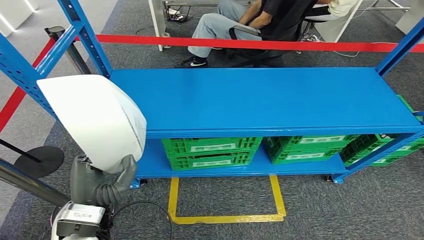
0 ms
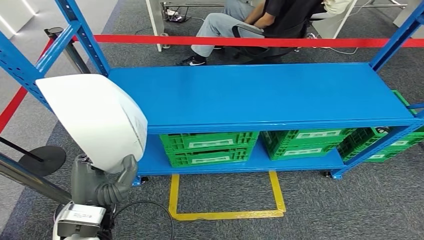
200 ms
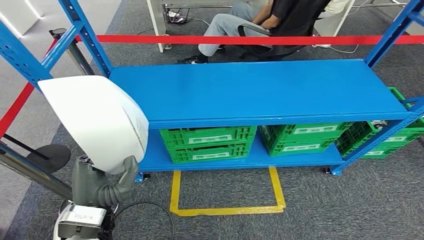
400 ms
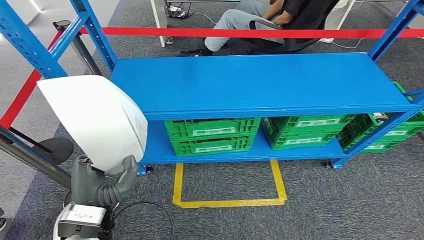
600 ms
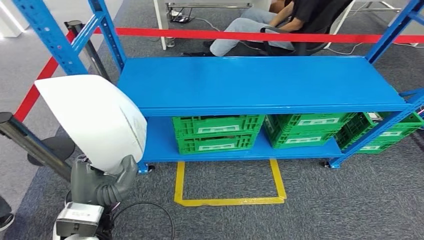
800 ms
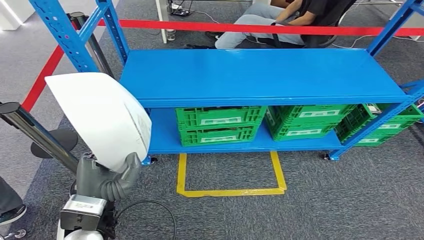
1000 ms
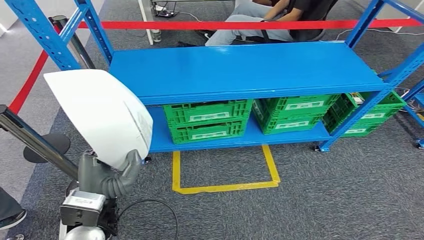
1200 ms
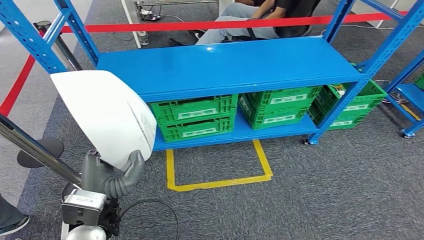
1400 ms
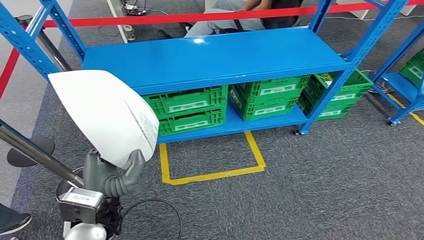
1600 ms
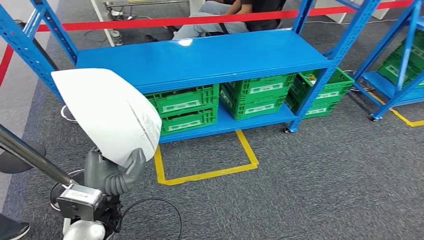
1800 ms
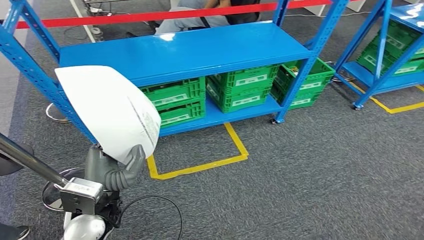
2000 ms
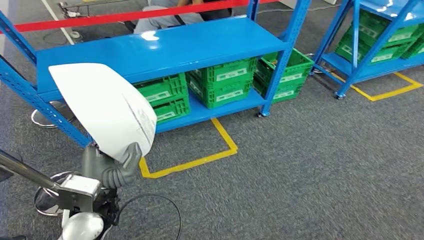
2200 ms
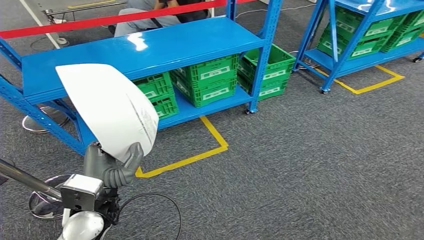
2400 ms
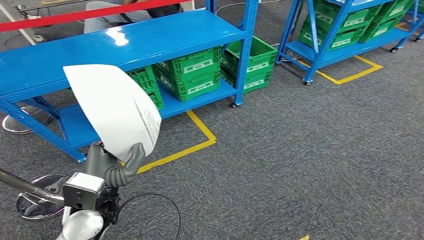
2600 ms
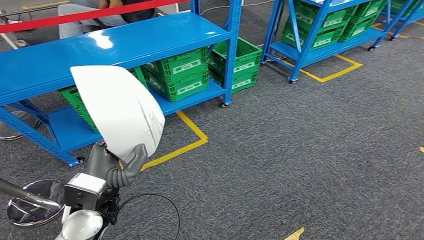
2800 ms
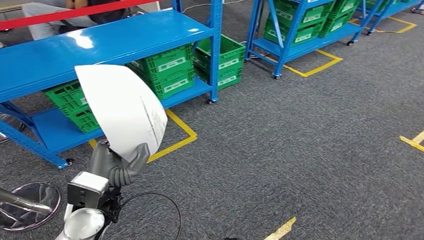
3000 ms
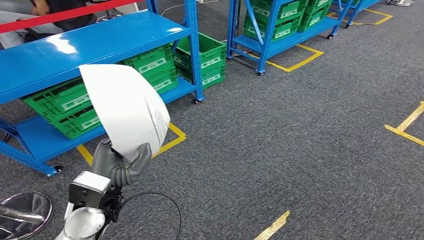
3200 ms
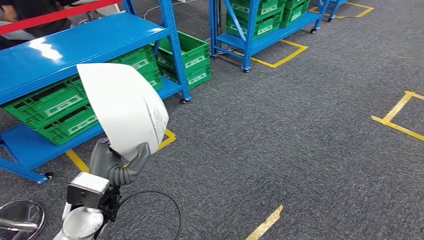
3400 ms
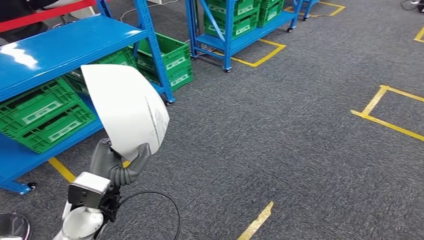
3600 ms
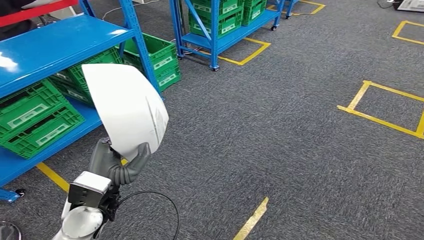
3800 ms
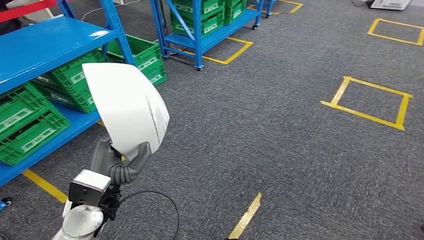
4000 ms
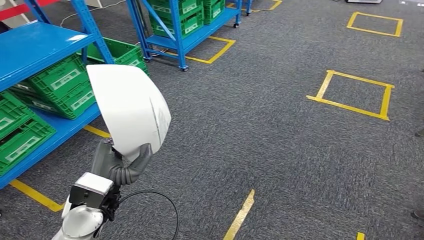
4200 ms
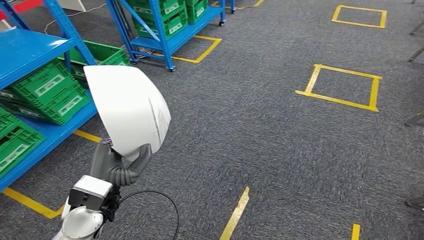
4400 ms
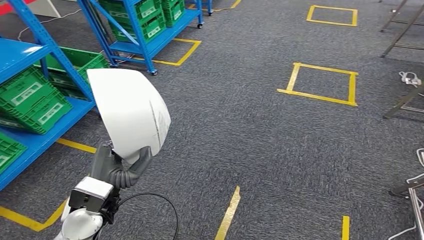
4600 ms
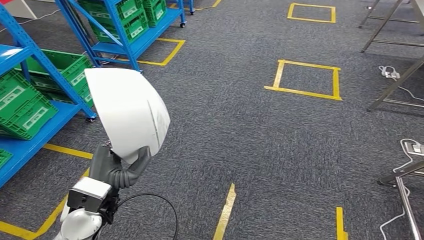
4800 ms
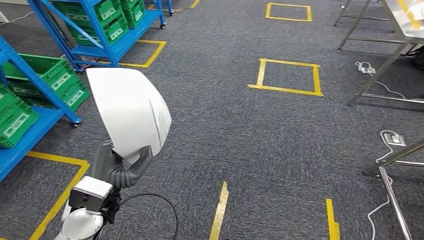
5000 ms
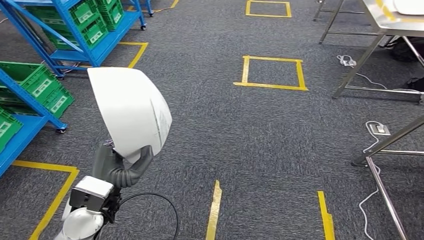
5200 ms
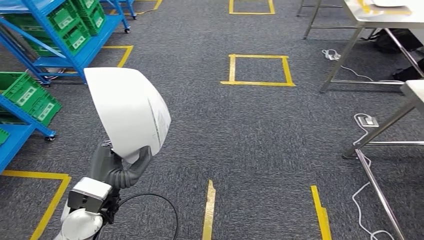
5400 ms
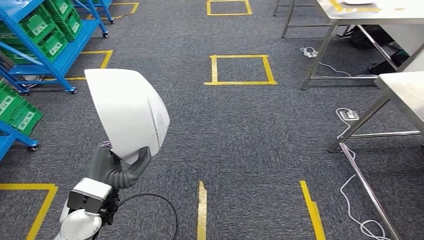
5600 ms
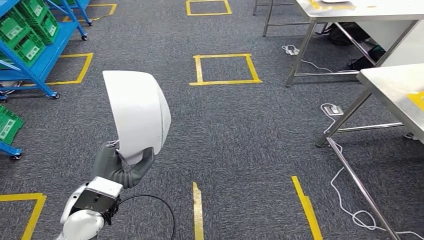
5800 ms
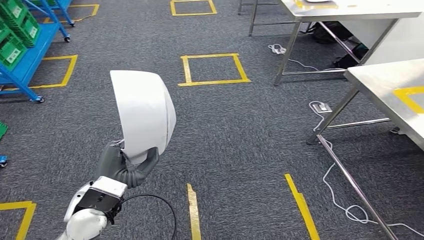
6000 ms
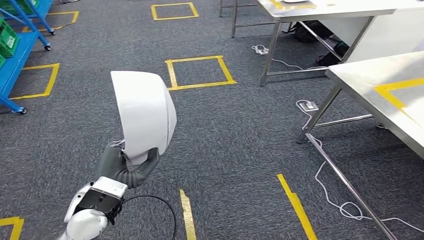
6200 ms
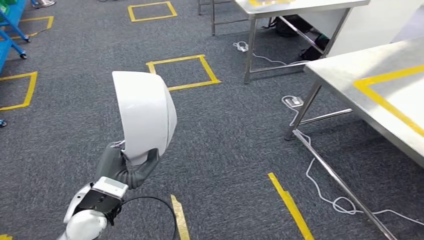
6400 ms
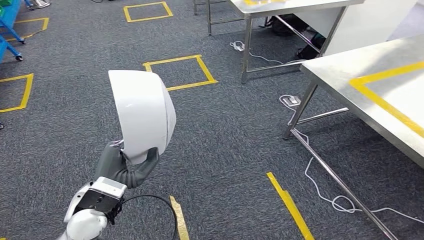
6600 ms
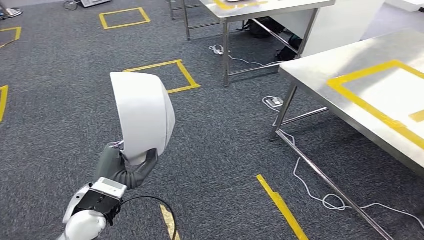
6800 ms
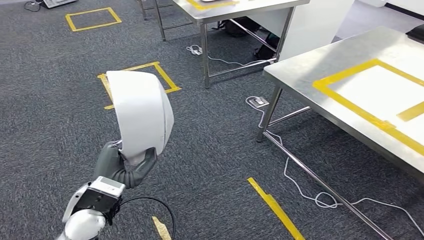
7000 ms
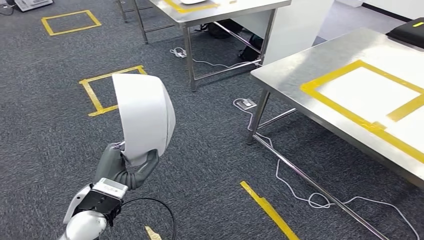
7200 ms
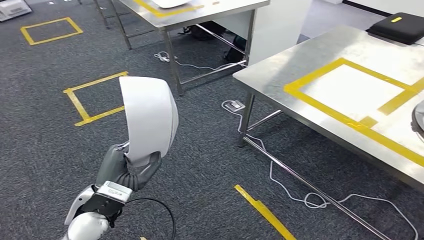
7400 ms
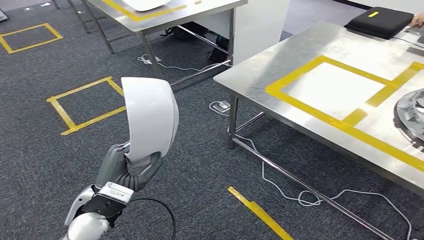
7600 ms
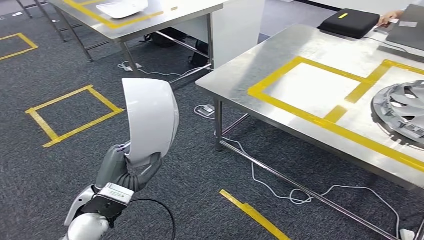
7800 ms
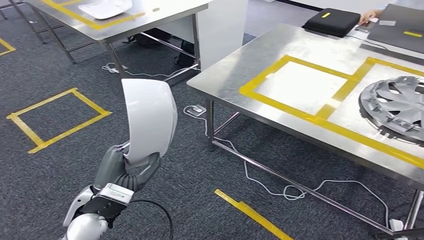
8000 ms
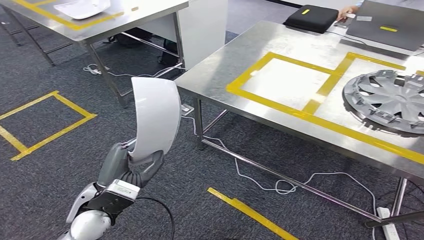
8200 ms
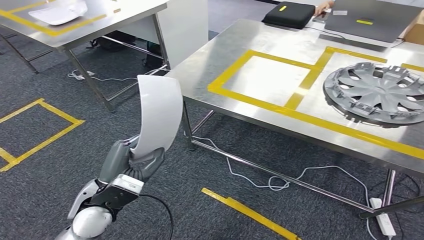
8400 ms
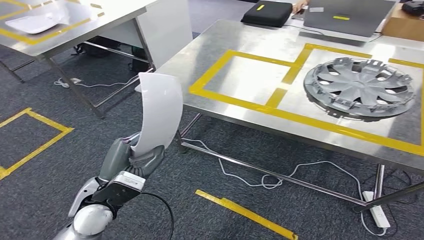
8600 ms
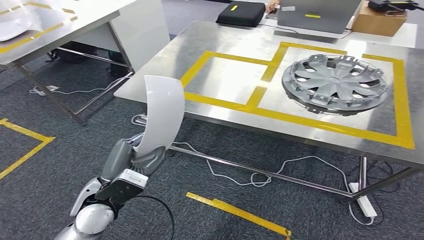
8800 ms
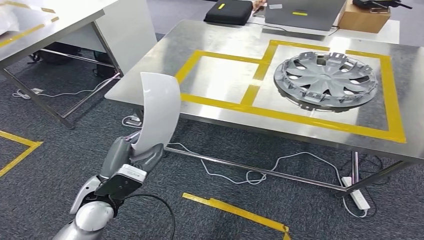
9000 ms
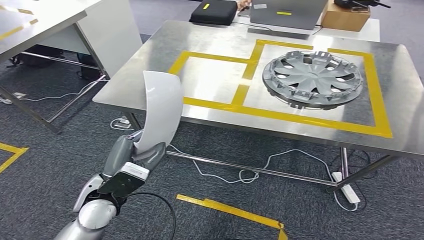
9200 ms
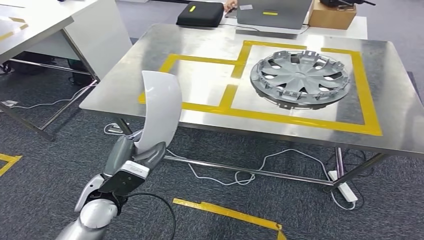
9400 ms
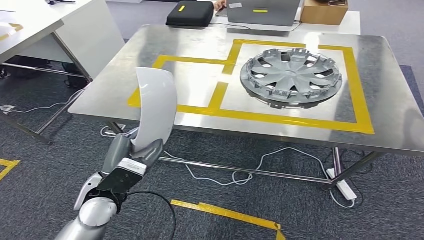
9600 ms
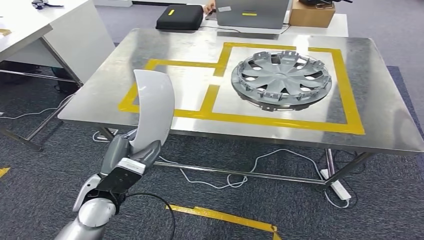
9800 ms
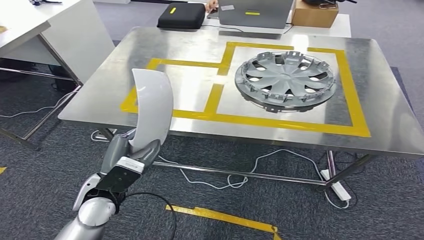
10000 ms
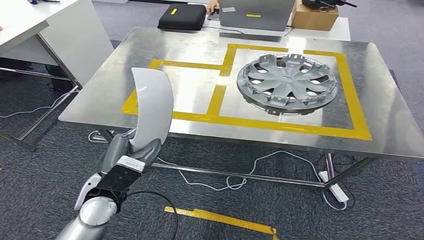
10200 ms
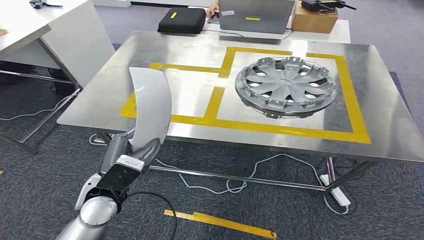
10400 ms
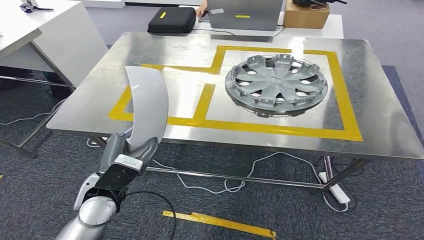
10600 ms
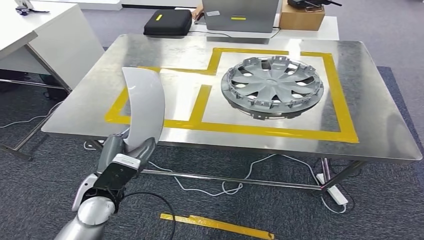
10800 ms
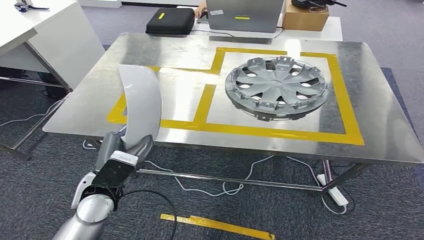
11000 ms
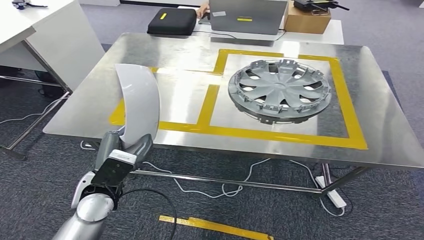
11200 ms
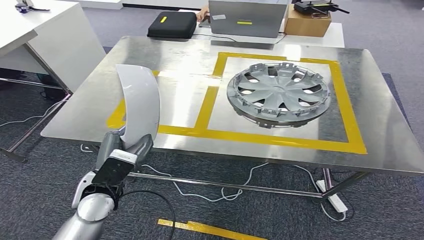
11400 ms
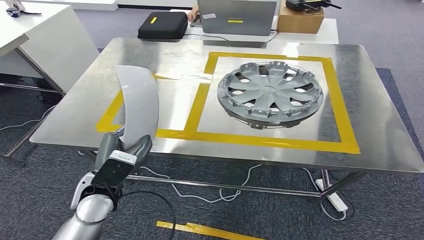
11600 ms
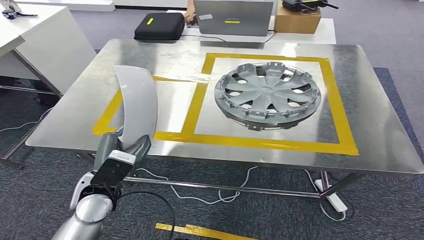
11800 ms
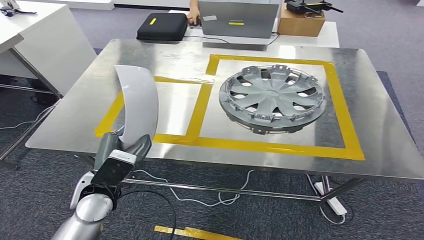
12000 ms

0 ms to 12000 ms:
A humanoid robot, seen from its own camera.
Step, 600 ms to 9600 ms: Move the small parts to the workbench.

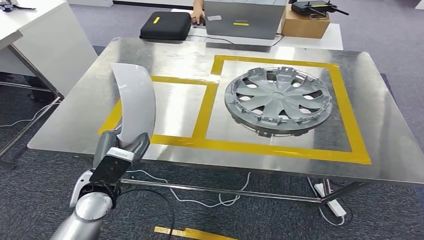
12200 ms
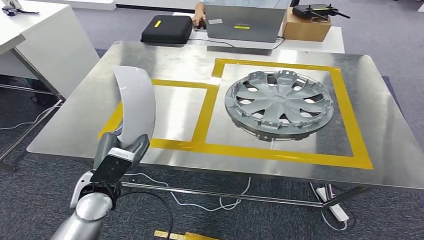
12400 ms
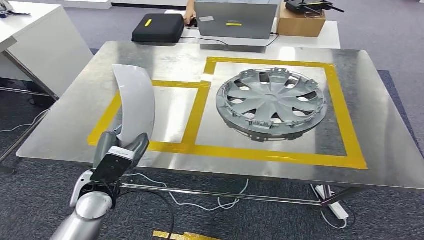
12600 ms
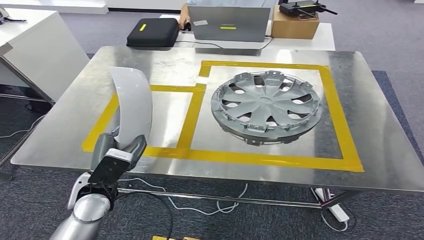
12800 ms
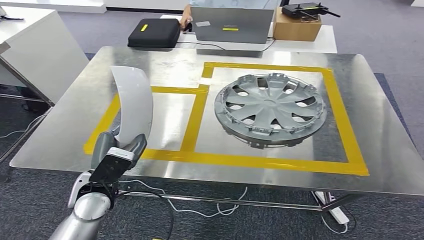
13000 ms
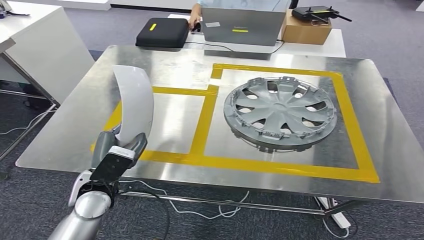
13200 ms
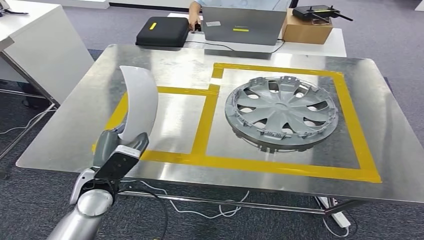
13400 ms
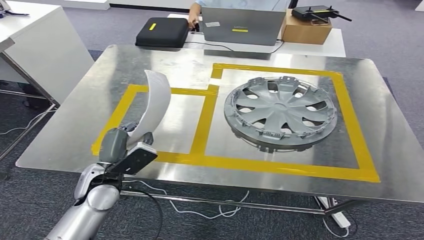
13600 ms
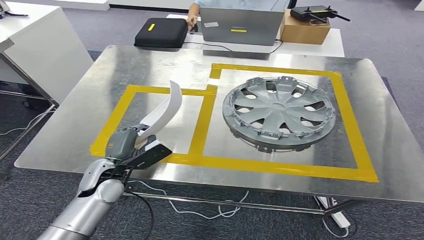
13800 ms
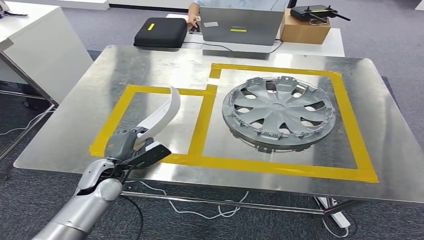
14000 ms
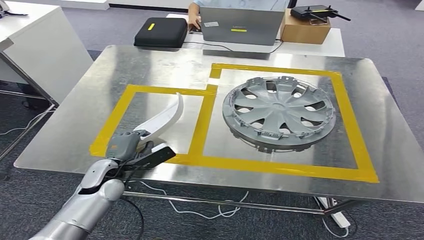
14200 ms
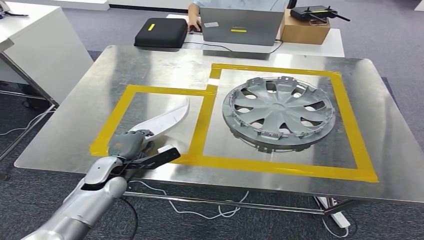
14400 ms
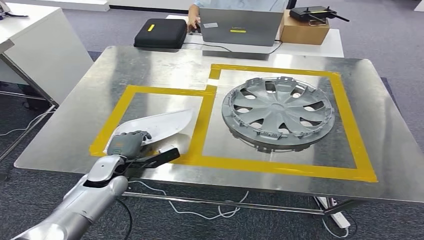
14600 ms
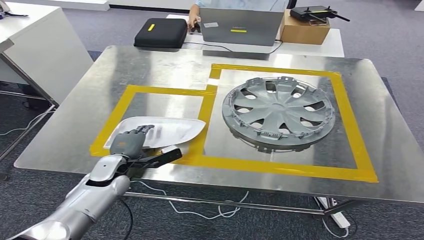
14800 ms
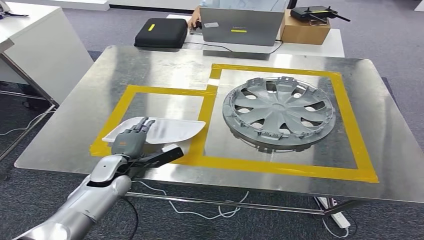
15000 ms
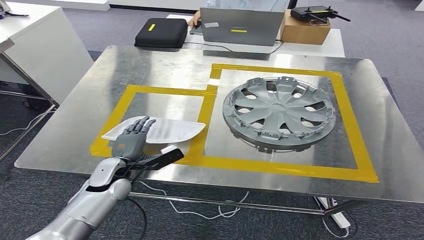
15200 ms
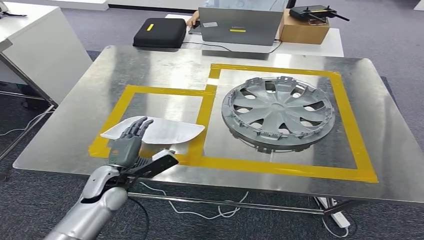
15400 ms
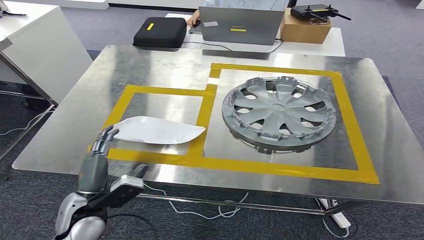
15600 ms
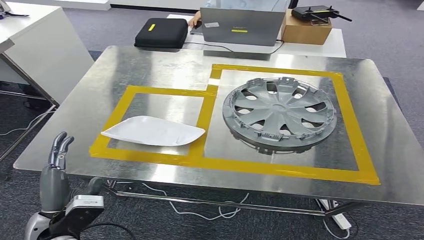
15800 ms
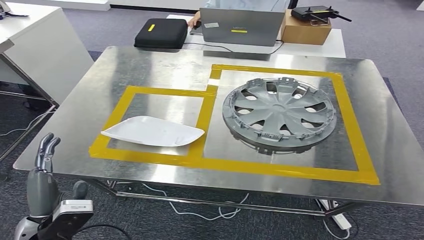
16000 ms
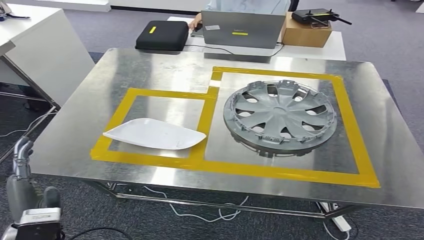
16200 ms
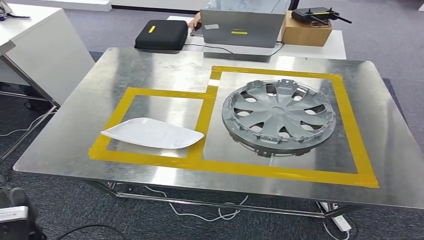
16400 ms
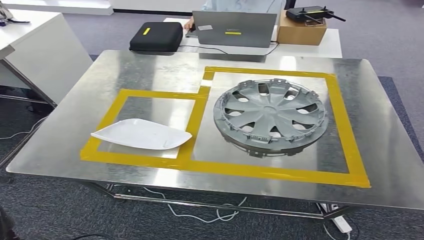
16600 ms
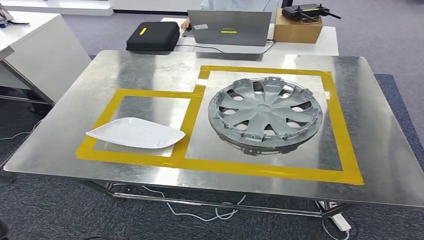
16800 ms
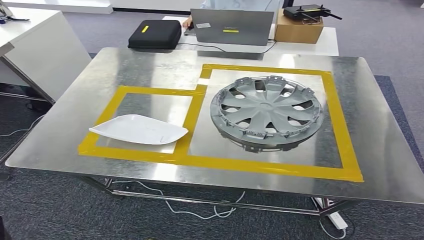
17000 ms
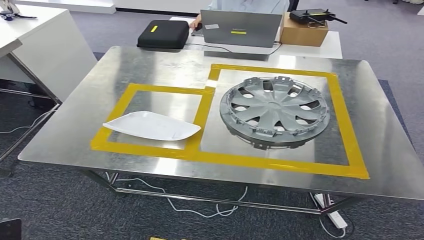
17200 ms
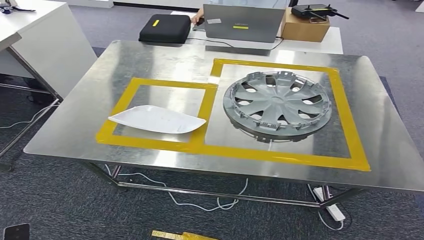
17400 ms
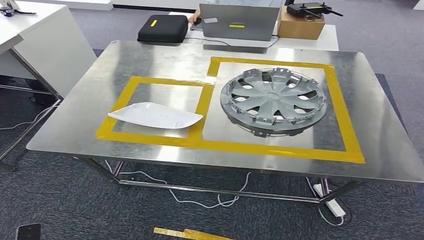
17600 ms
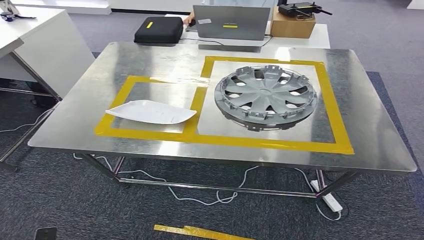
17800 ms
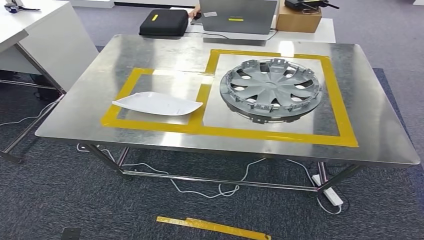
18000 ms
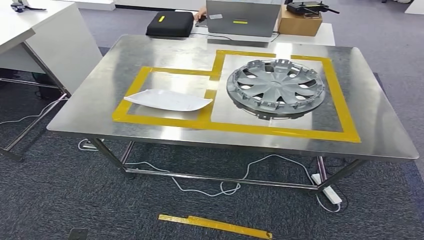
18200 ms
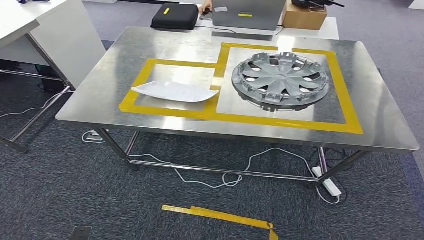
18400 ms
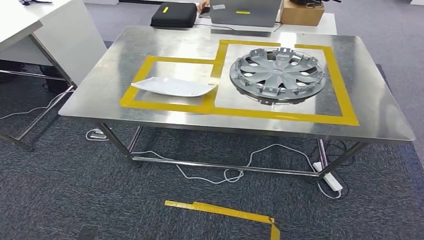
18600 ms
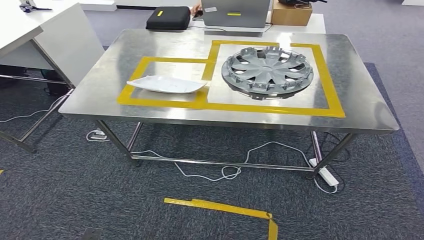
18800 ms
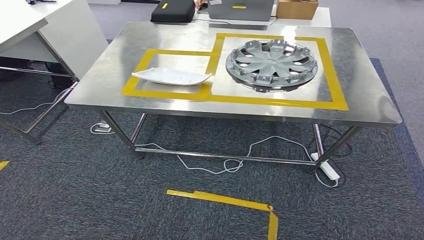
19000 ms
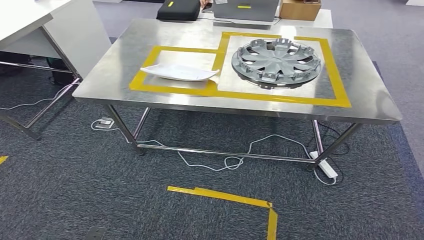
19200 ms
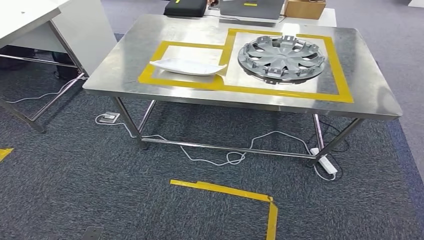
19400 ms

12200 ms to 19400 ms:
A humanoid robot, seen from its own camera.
Step, 12200 ms to 19000 ms: Insert the small parts into the corresponding slots on the workbench.
13600 ms to 15000 ms: The left hand moves downward, some 5 cm.
